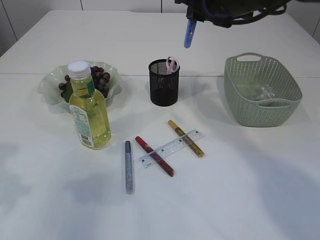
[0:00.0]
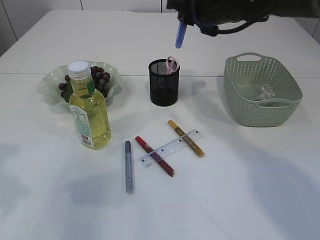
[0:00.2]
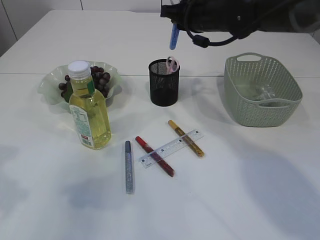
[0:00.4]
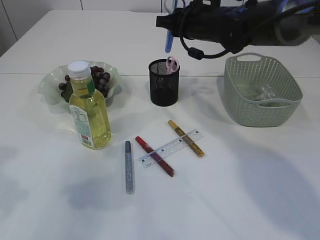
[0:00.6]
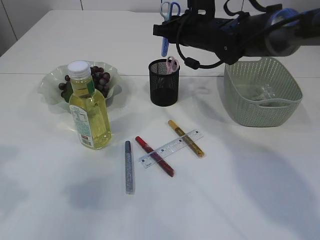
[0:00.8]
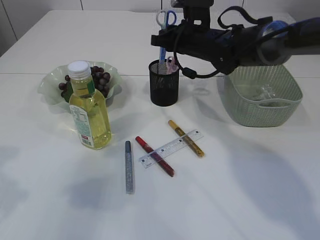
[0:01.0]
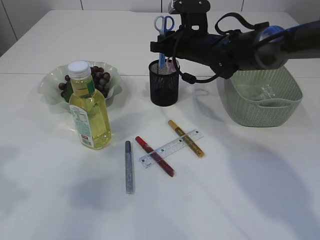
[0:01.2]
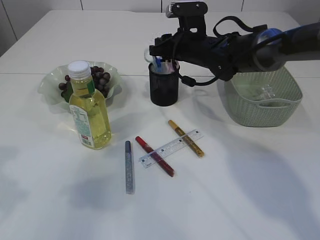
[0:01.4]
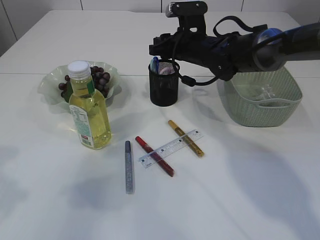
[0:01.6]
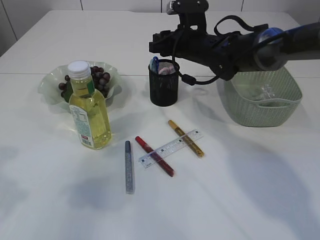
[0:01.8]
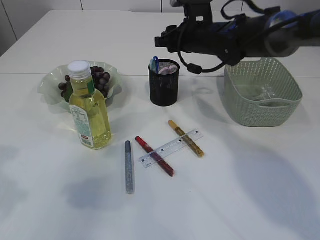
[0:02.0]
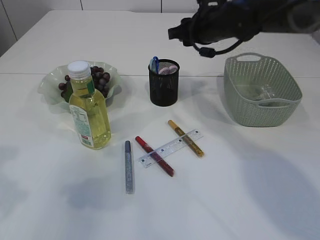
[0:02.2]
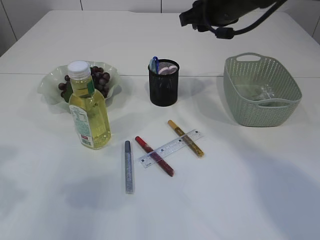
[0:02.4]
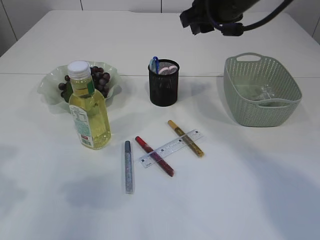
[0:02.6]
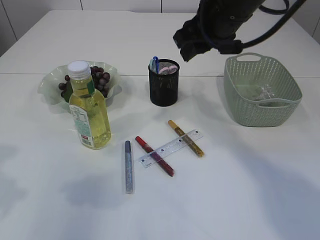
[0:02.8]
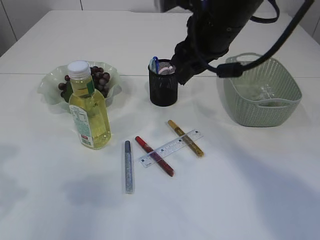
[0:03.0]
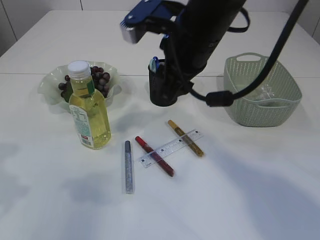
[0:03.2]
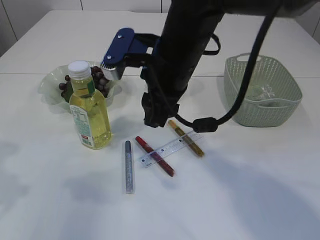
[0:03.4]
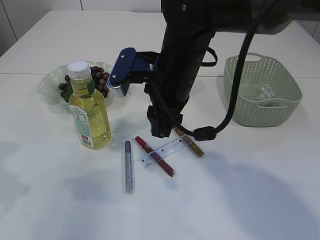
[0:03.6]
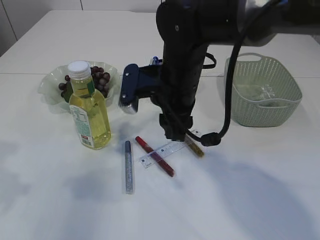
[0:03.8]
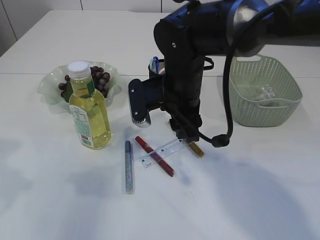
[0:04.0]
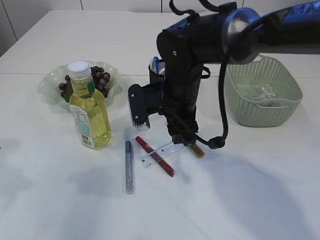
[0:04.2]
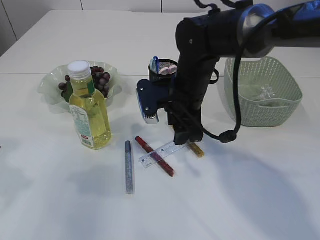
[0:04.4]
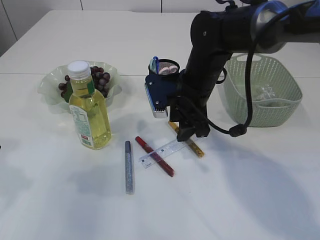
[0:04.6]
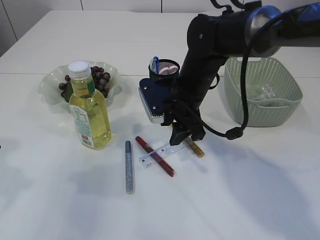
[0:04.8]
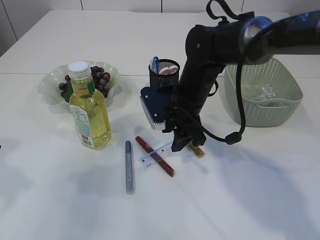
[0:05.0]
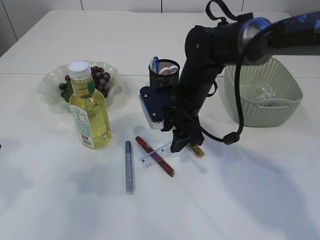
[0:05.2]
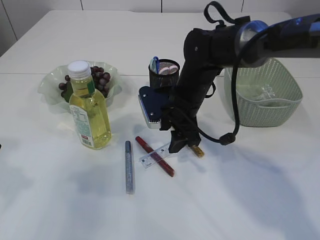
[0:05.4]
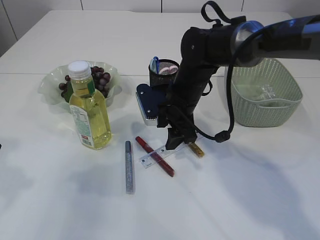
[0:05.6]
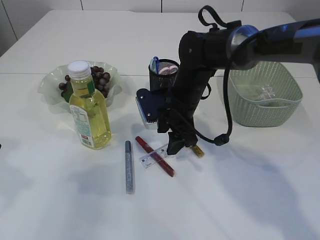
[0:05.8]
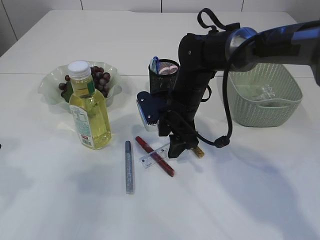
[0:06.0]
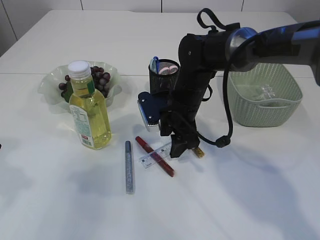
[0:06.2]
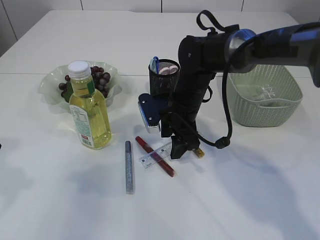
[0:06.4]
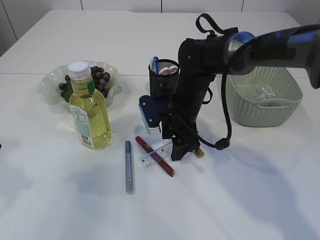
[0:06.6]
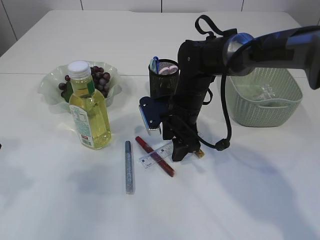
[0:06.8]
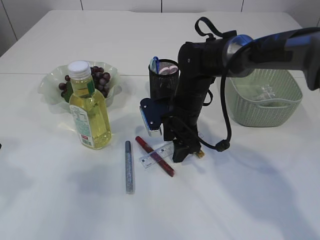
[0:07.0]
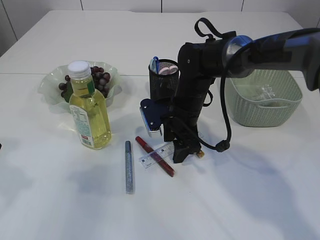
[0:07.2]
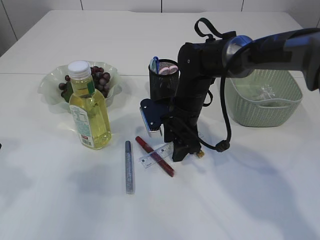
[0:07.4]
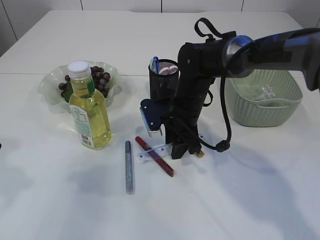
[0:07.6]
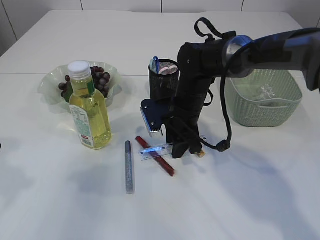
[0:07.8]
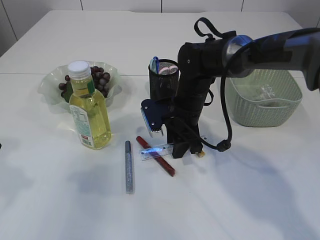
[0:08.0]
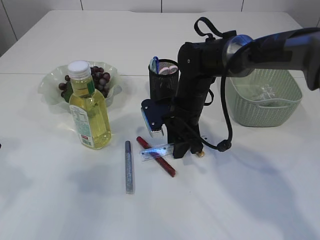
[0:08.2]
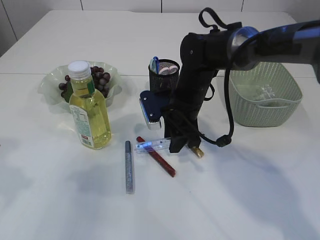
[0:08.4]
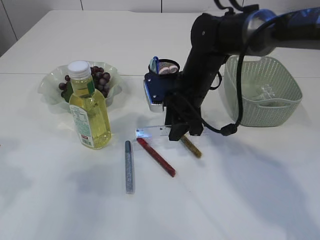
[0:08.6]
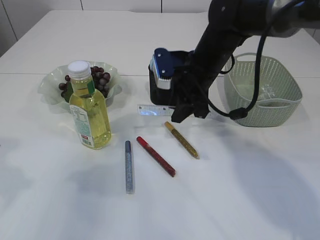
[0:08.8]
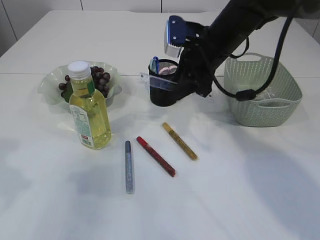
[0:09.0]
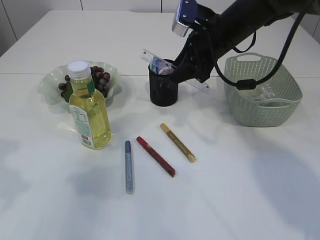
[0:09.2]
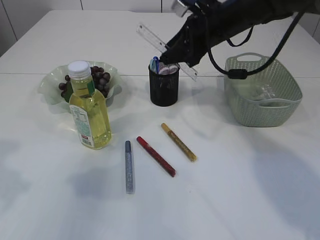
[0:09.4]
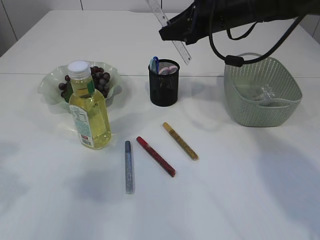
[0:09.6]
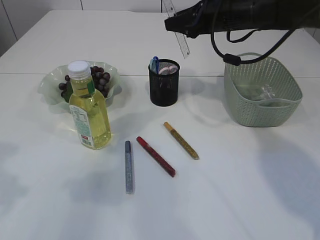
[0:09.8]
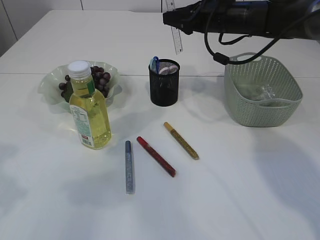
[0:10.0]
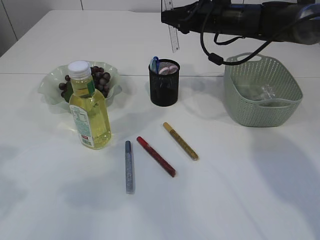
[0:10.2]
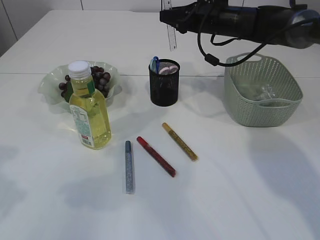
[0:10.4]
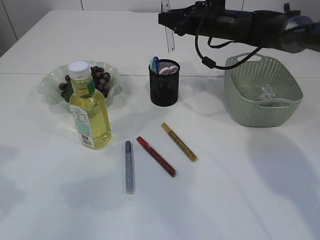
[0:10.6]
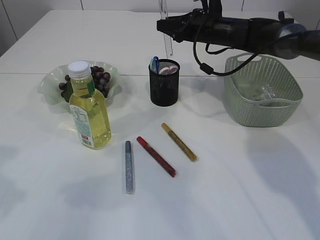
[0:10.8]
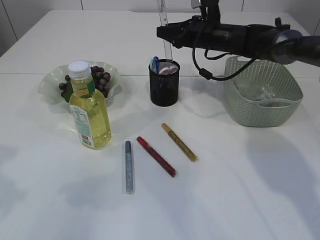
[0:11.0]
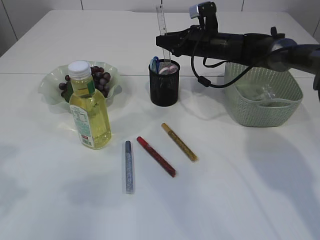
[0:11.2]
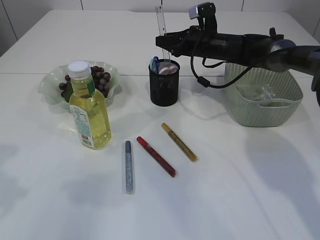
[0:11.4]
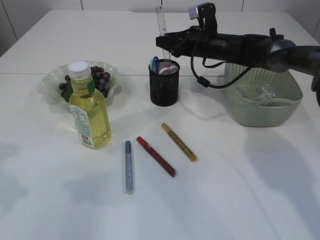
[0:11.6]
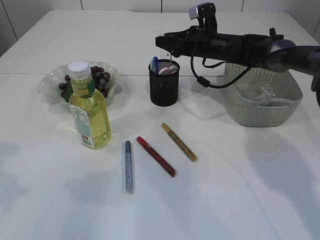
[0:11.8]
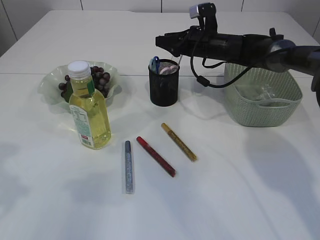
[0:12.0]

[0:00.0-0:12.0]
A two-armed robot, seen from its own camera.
Step, 0:00.0 to 0:02.0: Place the blue scissors into the pen holder.
Step, 0:02.2 to 0:08.6: pick up the ruler.
0:00.0 to 0:01.6: The right gripper goes roughly 15 cm downward and forward.
0:01.6 to 0:03.0: The right gripper is displaced backward and upward by about 20 cm.
0:03.0 to 0:04.4: The right gripper shifts roughly 15 cm downward.
0:04.4 to 0:06.0: The grippers stay close to where they were, moving slightly.
0:06.0 to 0:07.6: The right gripper closes up.
0:07.6 to 0:09.0: The right gripper goes approximately 10 cm upward.
0:09.0 to 0:10.4: The right gripper heads forward, covering about 10 cm.
0:10.4 to 0:12.0: The right gripper travels downward by roughly 5 cm.

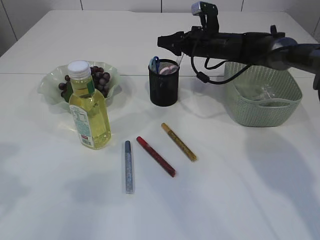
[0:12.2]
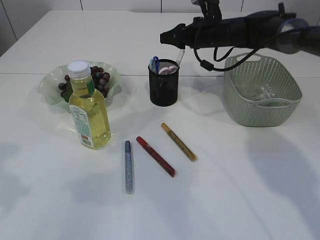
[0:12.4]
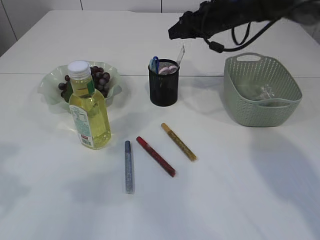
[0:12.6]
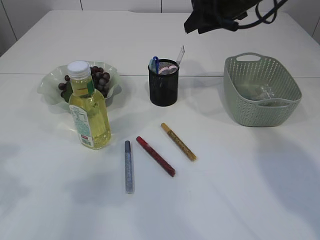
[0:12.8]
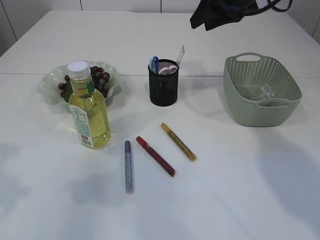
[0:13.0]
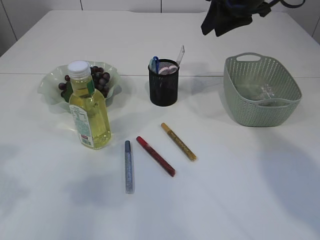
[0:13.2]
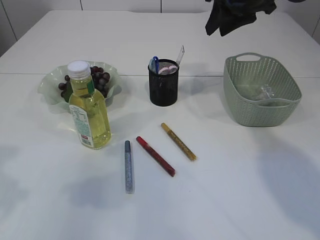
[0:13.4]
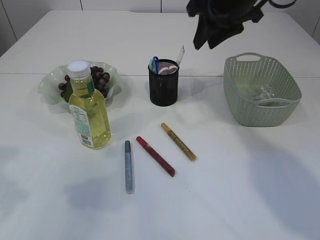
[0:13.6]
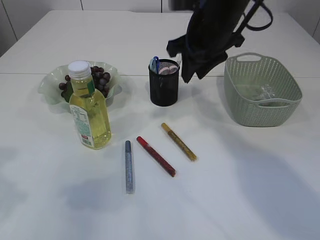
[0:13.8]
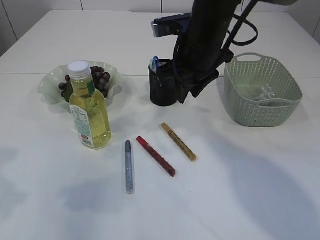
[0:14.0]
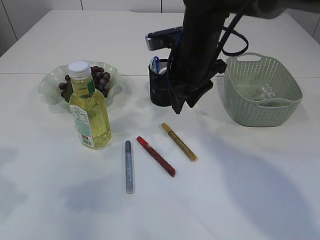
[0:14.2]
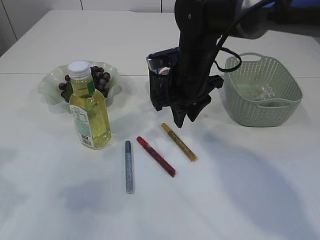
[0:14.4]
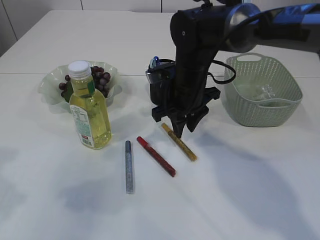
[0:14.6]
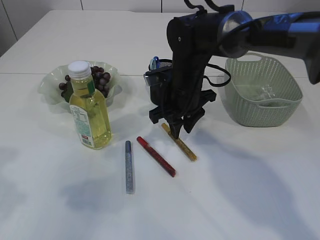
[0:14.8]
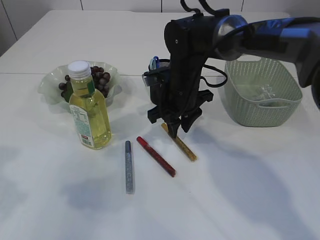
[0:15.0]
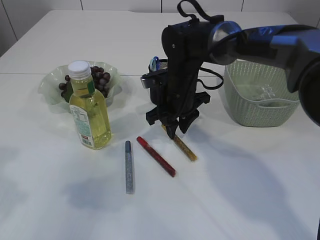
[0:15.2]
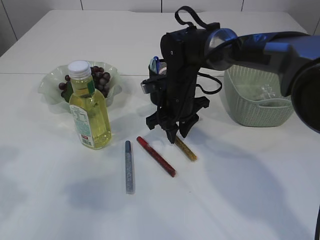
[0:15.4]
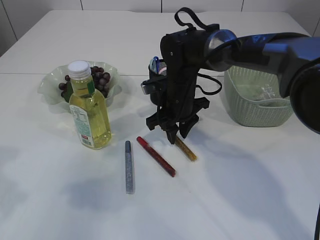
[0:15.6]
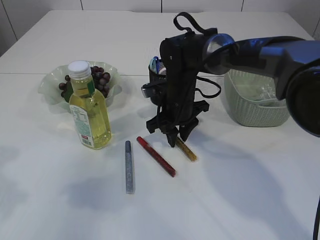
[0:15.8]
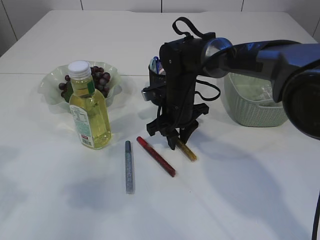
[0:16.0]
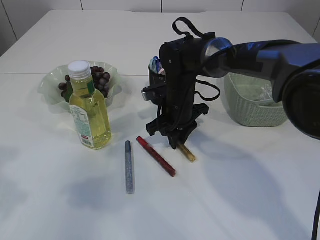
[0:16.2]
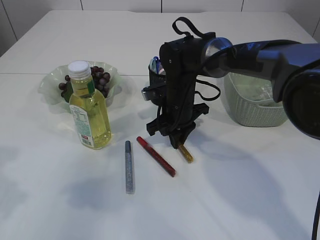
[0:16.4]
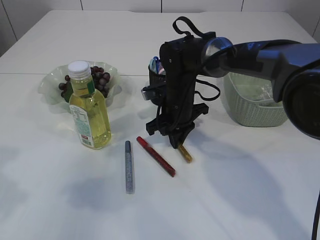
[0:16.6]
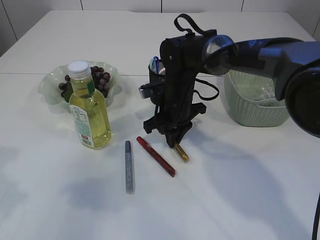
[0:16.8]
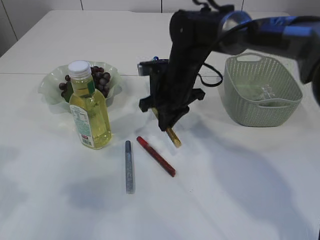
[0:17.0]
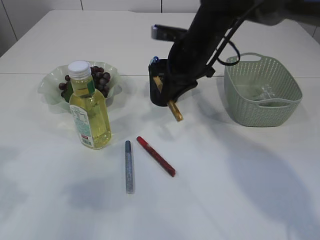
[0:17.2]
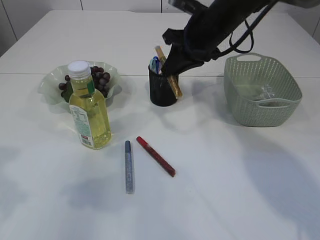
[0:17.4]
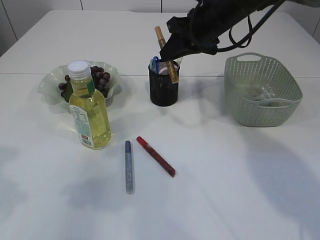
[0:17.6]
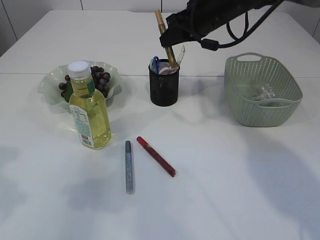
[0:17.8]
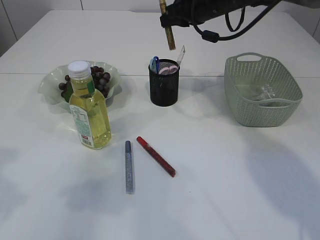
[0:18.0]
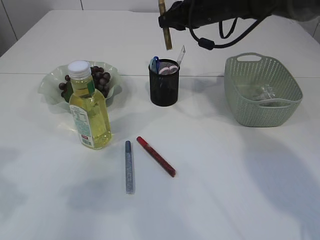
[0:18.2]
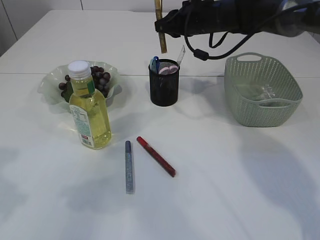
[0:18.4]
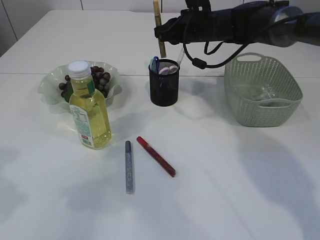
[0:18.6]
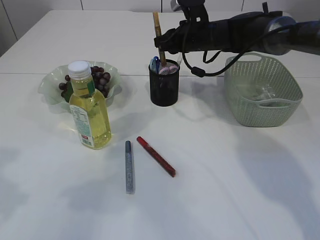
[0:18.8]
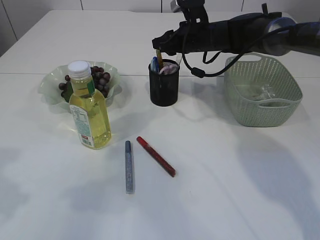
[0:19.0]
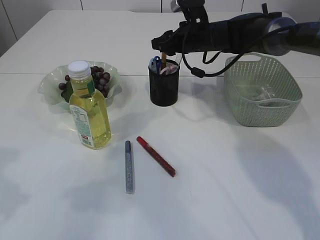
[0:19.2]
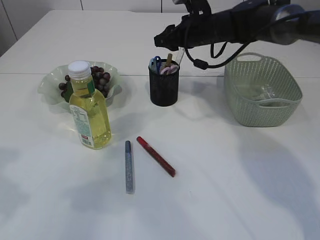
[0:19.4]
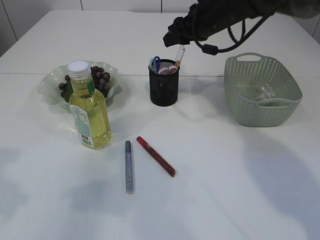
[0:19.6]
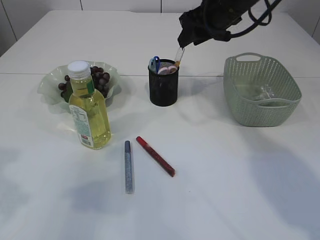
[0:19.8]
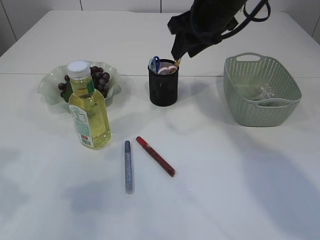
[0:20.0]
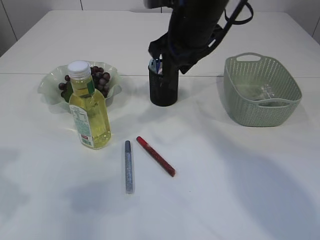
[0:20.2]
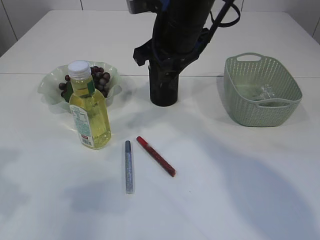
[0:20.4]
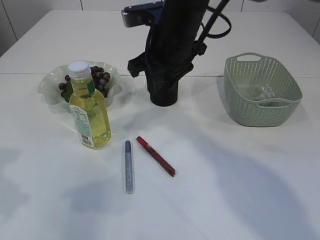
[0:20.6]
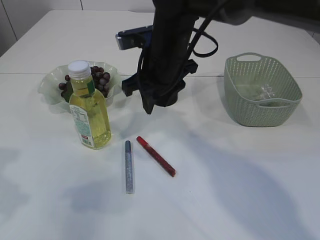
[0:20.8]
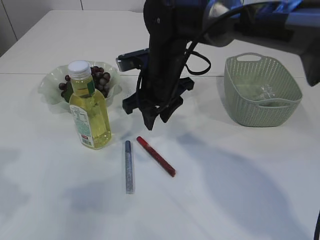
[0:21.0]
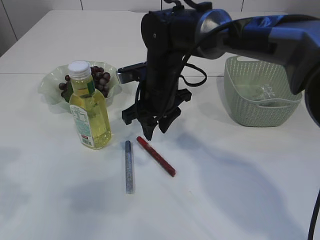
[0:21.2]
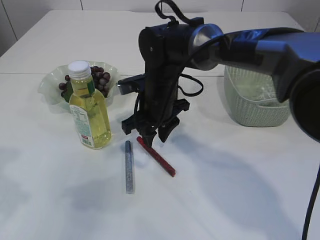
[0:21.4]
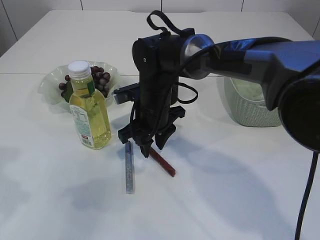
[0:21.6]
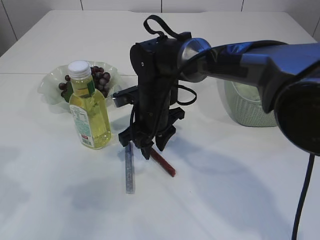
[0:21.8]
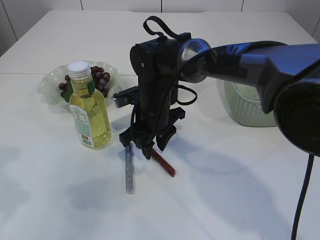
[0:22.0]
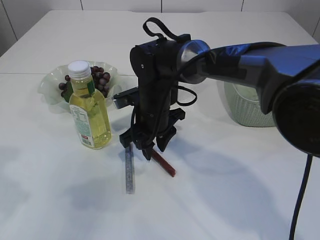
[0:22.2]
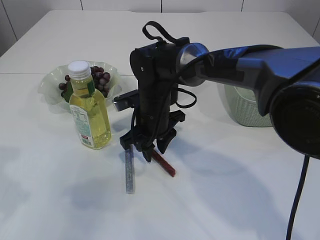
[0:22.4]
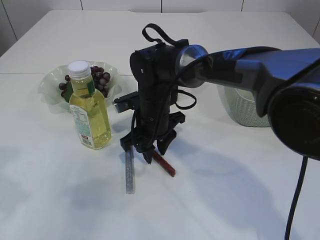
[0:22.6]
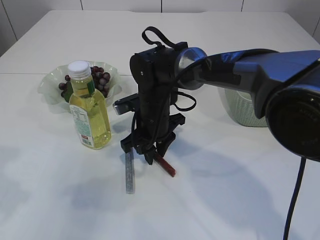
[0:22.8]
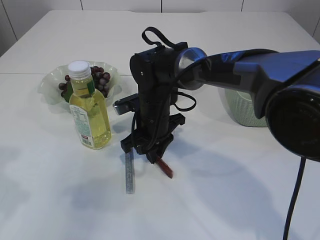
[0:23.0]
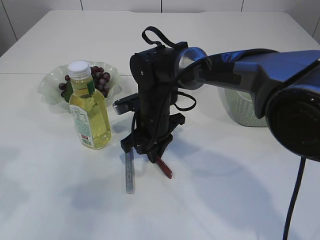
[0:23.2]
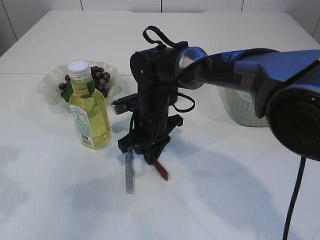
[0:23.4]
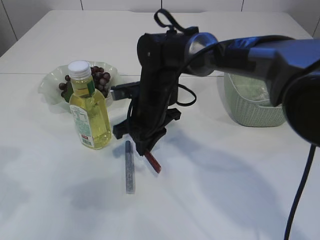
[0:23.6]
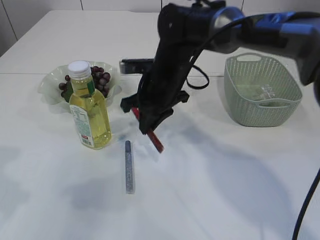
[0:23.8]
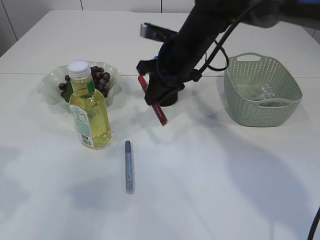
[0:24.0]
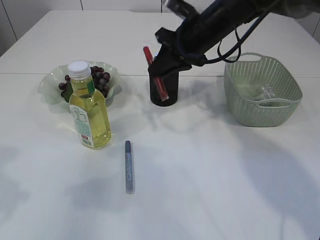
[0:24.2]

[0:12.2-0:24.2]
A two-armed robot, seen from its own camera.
Step, 0:12.8 to 0:17.2: pick up the yellow glue.
Step, 0:17.4 to 0:19.8: place the yellow glue into the pen holder.
Step, 0:20.0 to 0:23.8: pick up the red glue.
0:12.2 to 0:13.8: The right gripper travels backward and upward by about 20 cm.
0:13.8 to 0:15.2: The right gripper heads downward, covering approximately 15 cm.
0:15.2 to 0:16.6: The right gripper closes up.
0:16.6 to 0:18.2: The right gripper goes some 20 cm upward, forward and to the right.
0:18.2 to 0:19.8: The right gripper reaches about 5 cm downward, then returns, and opens its fingers.
0:19.8 to 0:21.2: The right gripper heads to the left, downward and backward, covering some 20 cm.
0:21.2 to 0:22.6: The right gripper travels downward by approximately 5 cm.
0:22.6 to 0:24.2: The right gripper heads upward, to the right and forward, covering roughly 15 cm, and closes up.
